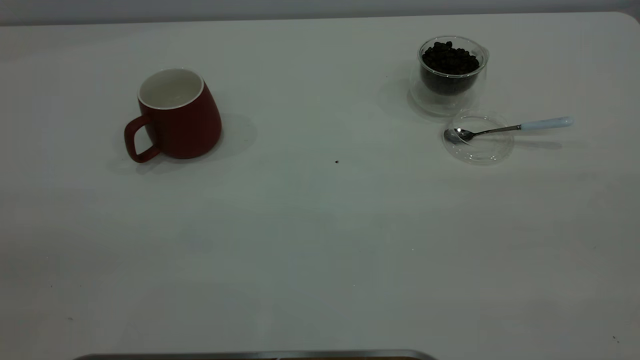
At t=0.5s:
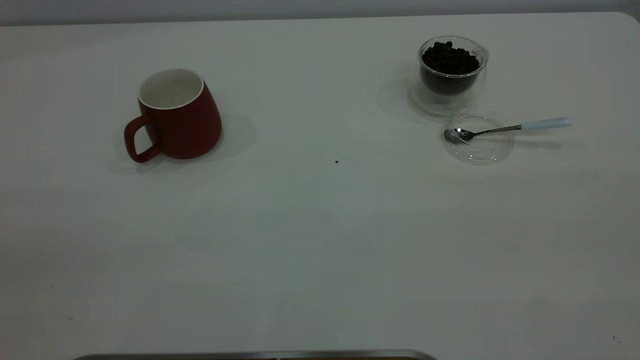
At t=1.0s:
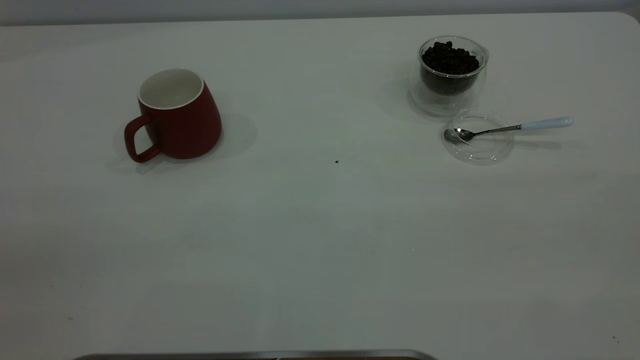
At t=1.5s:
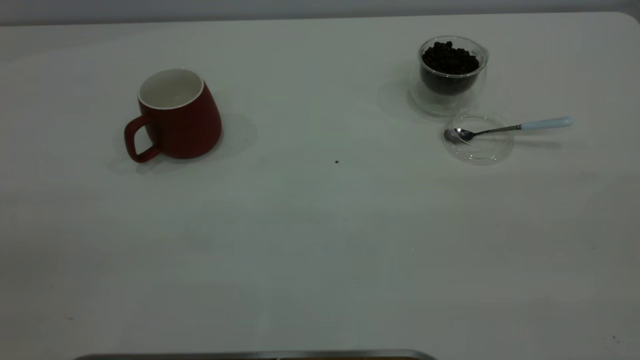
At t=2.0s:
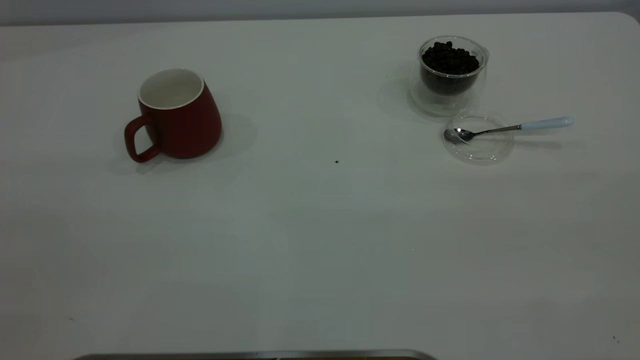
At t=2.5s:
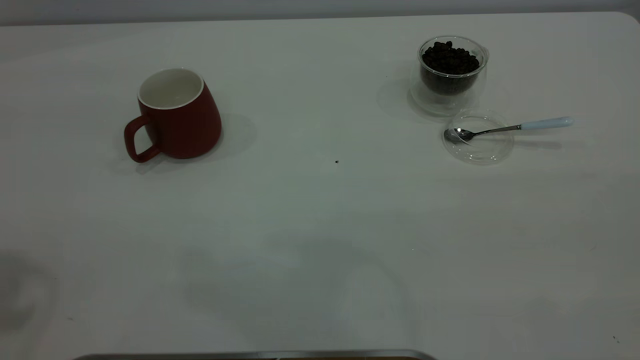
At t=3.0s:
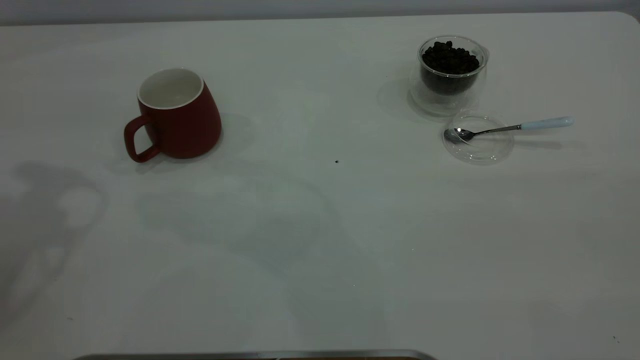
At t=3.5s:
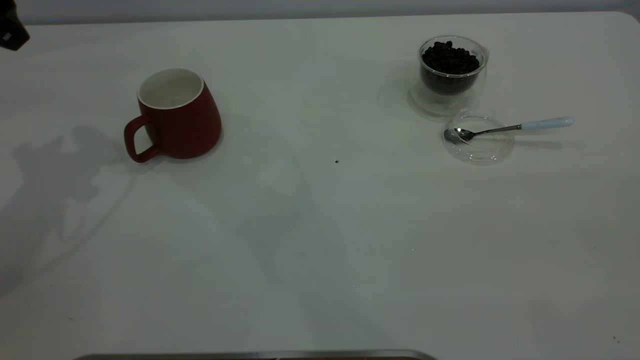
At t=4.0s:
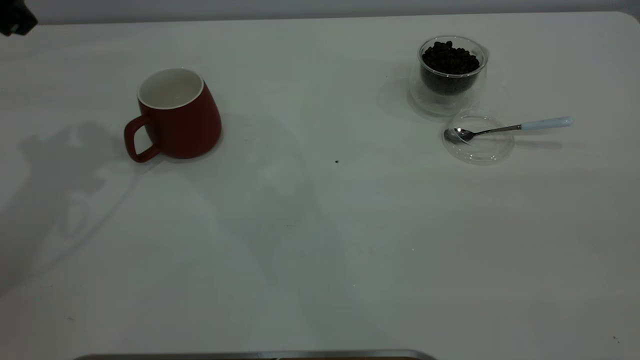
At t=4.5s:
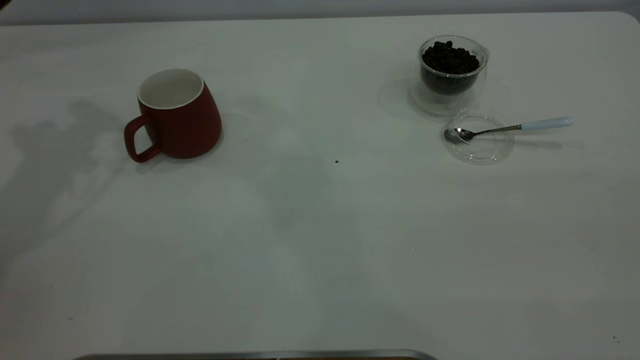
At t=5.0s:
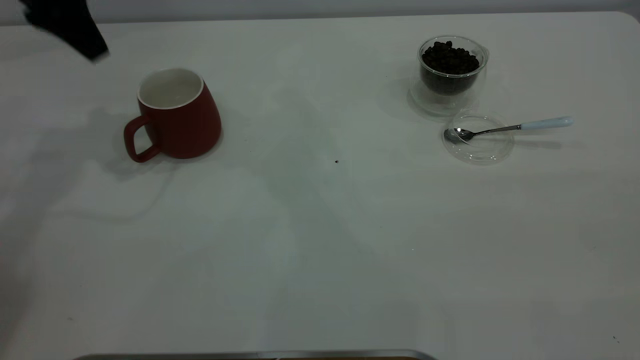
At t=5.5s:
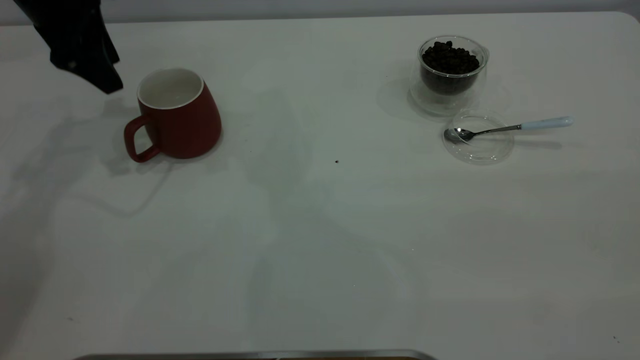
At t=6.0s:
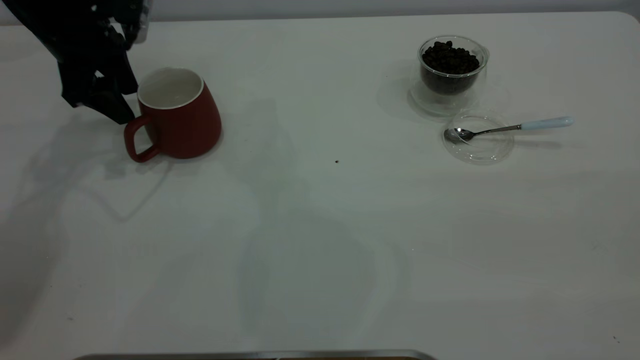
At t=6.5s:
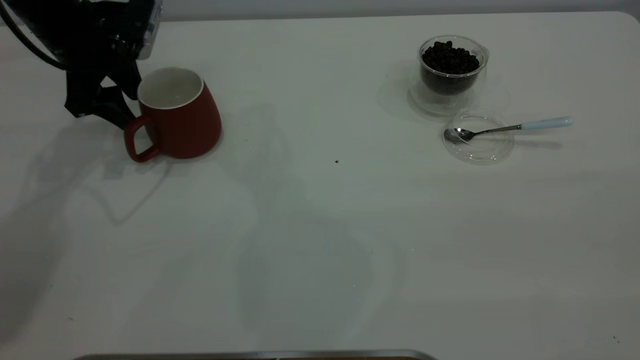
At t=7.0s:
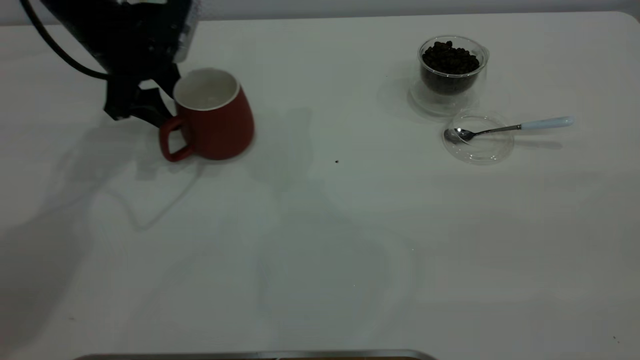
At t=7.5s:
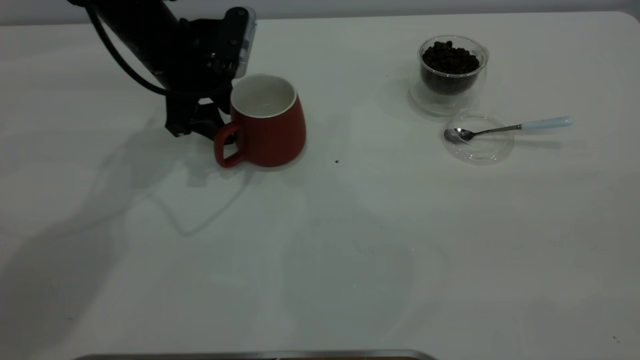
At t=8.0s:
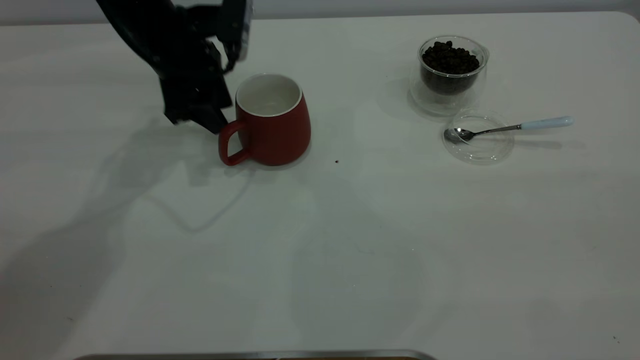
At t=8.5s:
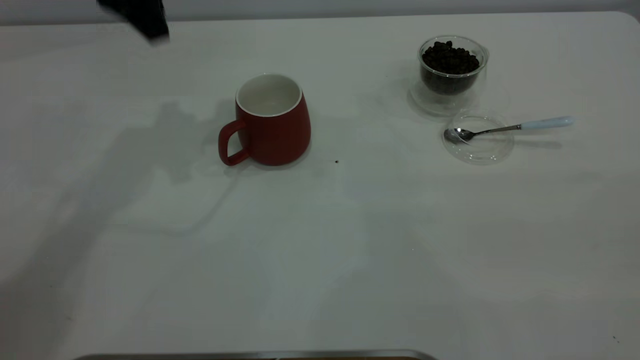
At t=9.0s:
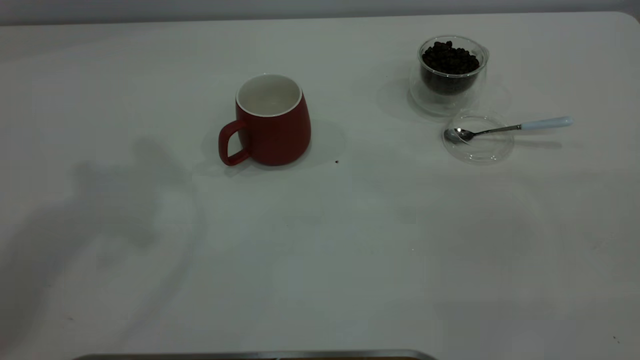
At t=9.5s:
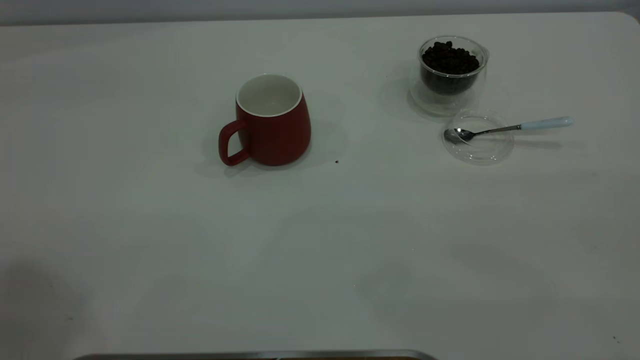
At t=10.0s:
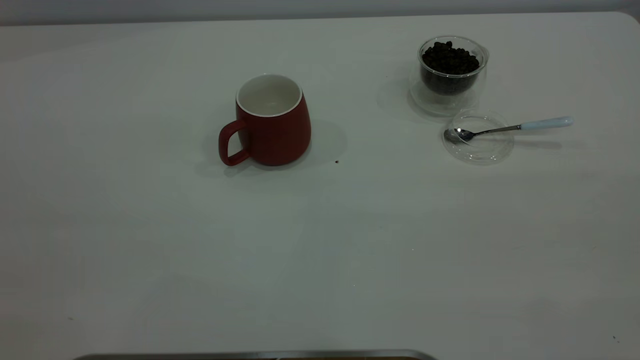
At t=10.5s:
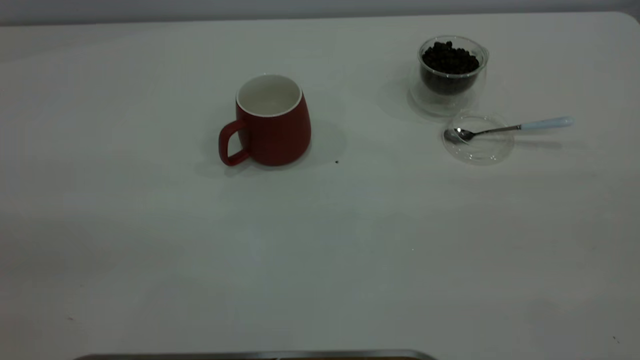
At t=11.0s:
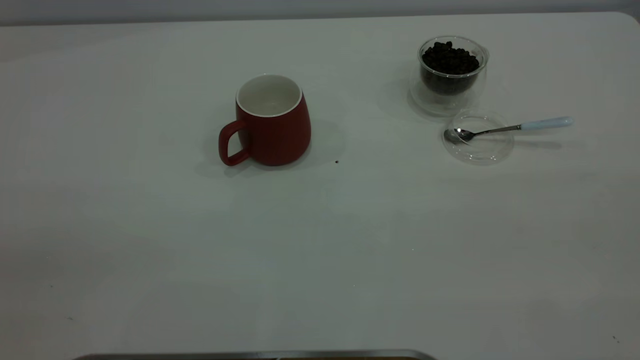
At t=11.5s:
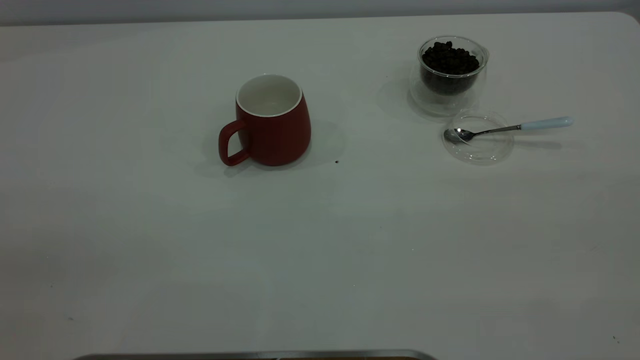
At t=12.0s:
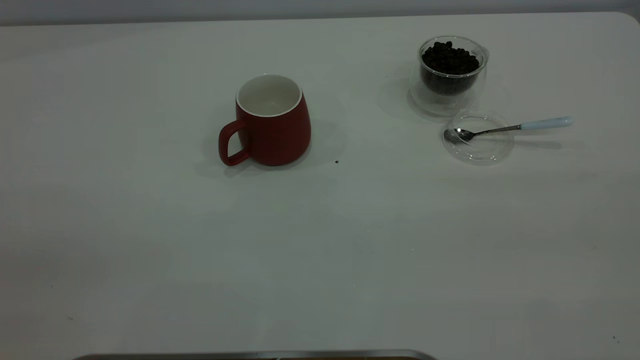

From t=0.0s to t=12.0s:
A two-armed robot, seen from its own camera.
Task of the whole recording: the left gripper place the red cup in the center of the table, the right gripper take the blue spoon from the cup lid and scoop out the coffee beans from the coffee cup and put them into the red cup, the right gripper put the spoon back into the cup lid.
Step, from t=0.0s to t=8.0s: Move the cup to the center of view.
From t=4.0s to t=6.0s: The left gripper heads downward and forward, covering roughly 15 cm.
From t=6.0s to t=8.0s: The left gripper shifts about 10 cm to the right, and closes.
From t=8.0s to t=10.0s: The left gripper heads backward and upward, covering approximately 40 cm.

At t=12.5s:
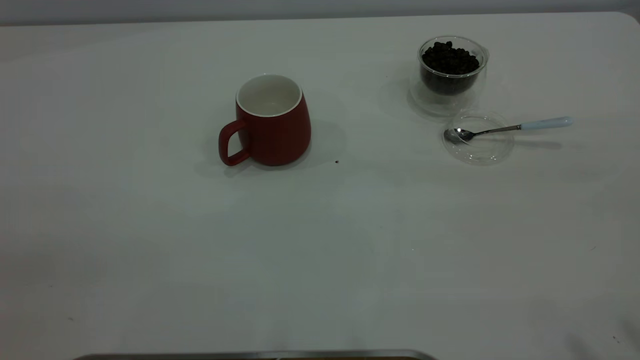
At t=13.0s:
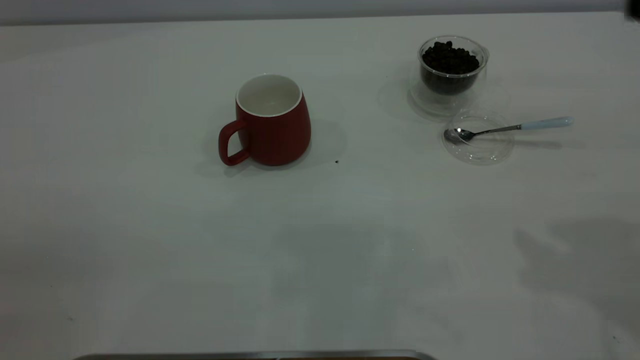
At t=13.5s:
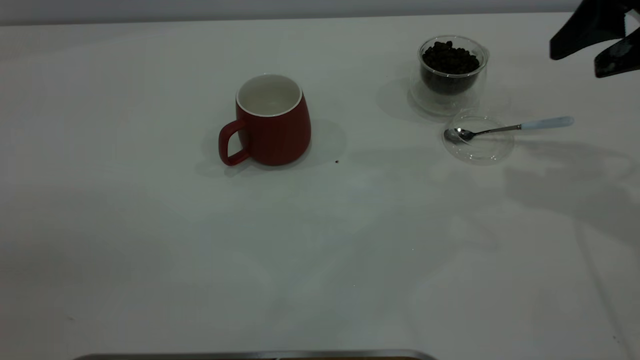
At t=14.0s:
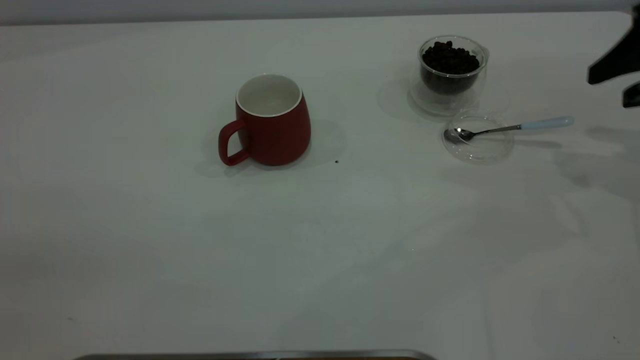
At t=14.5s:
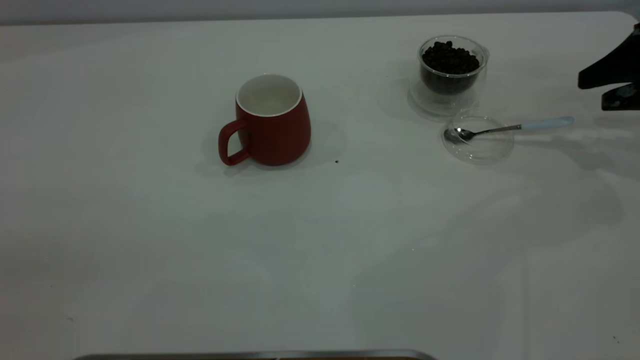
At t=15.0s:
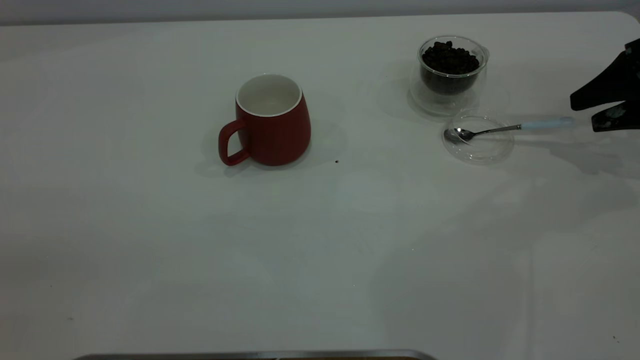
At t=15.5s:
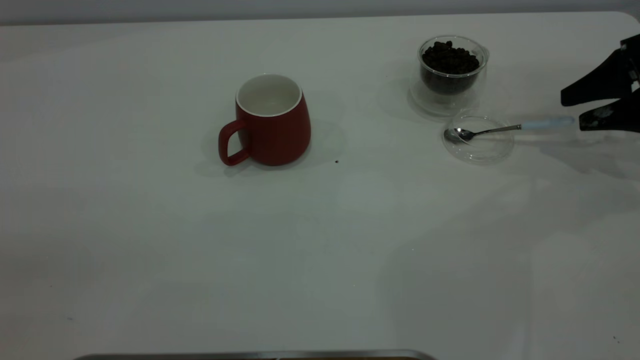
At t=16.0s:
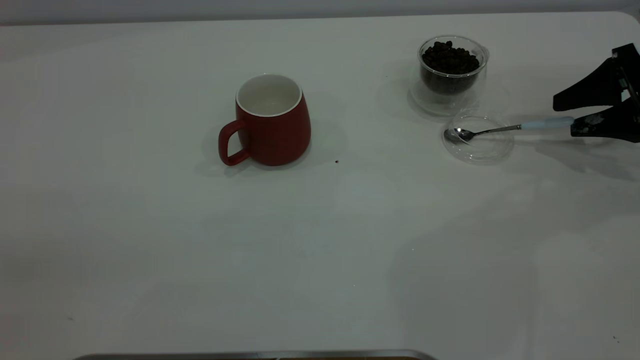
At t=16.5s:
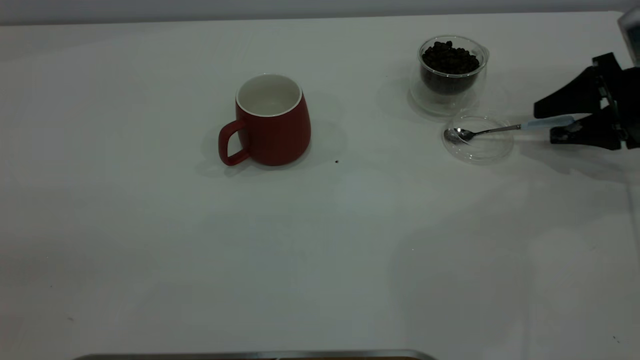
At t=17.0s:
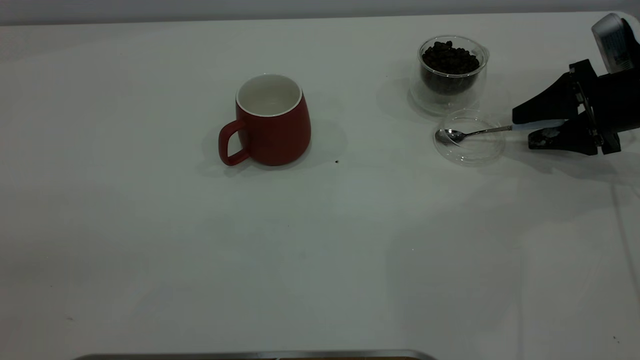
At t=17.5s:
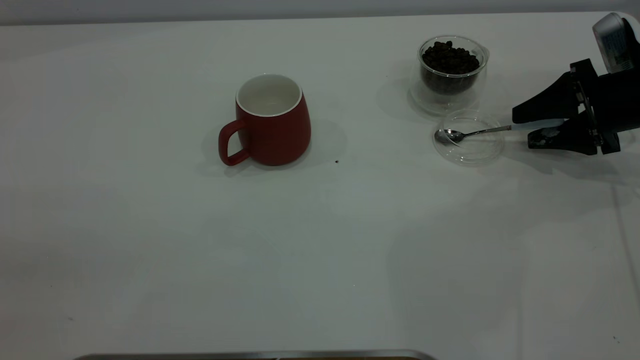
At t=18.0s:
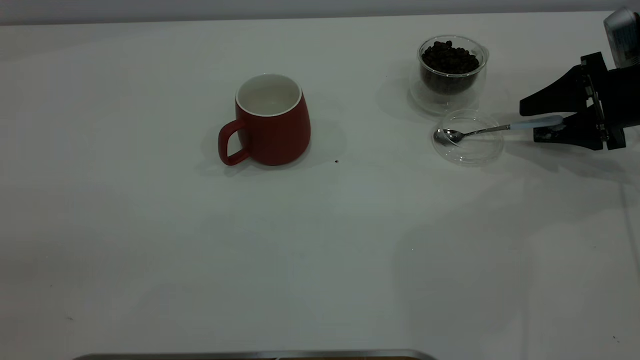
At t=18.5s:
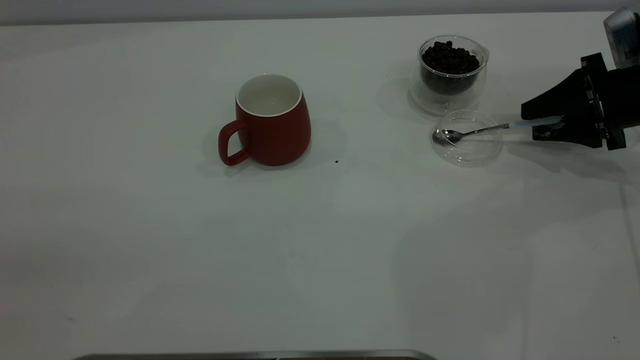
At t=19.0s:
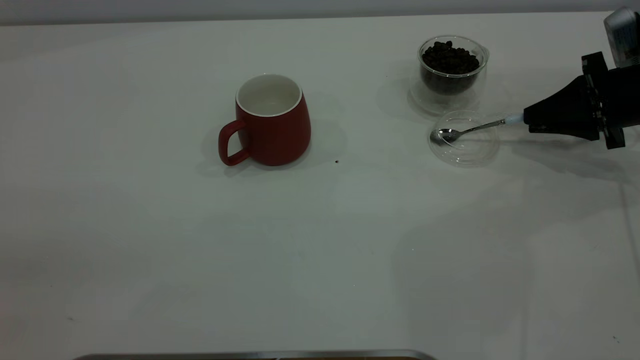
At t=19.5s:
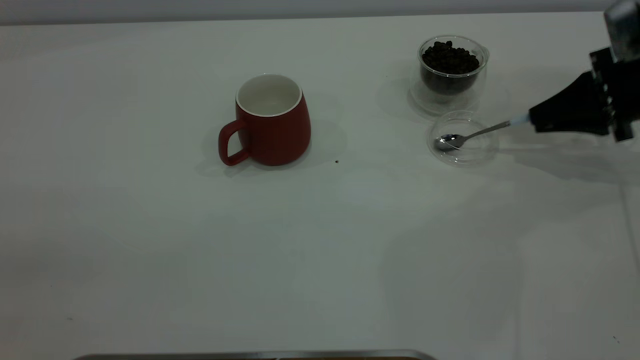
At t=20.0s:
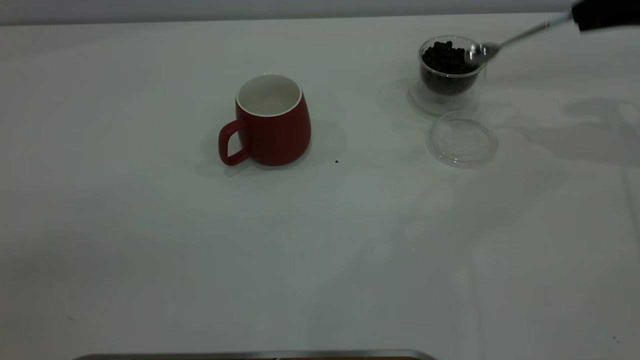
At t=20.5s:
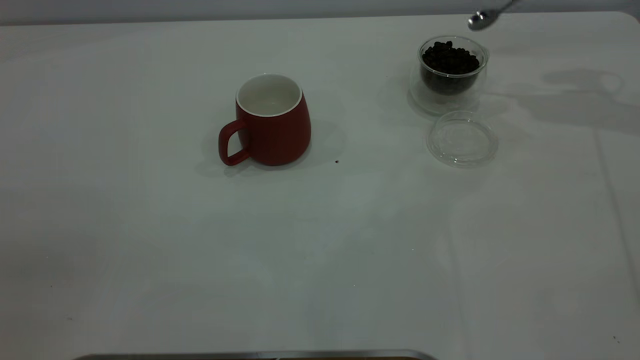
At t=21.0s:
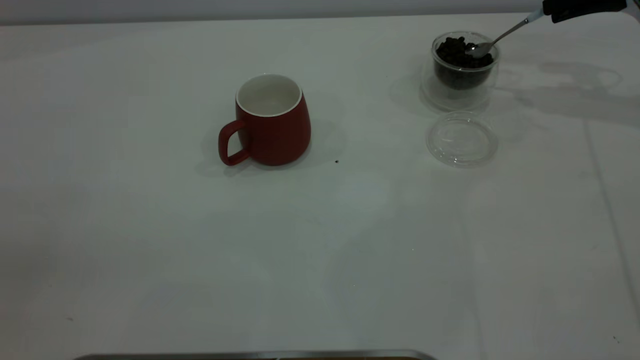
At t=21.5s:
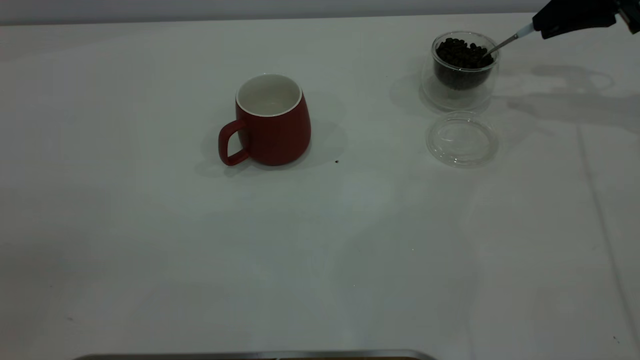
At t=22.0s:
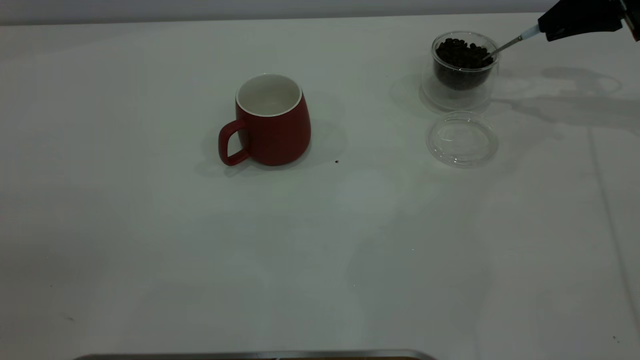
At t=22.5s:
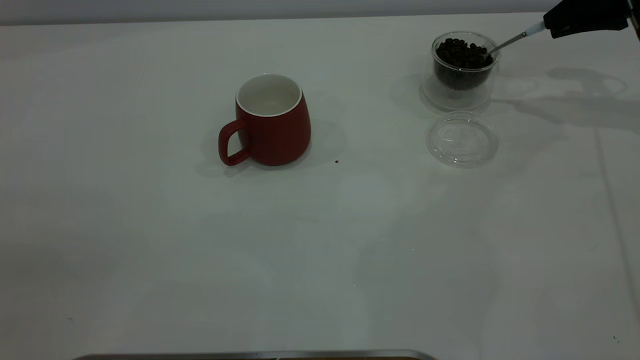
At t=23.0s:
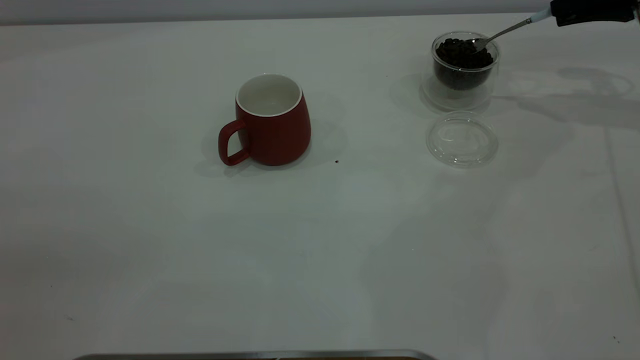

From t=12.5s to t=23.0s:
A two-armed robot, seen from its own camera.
Task of the whole recording: the left gripper place the red cup in the center of the table, the right gripper take the blue spoon from the cup lid and scoop out the coffee beans from the coffee cup and put them into the red cup, the right gripper put the spoon back into the cup lid.
Step, from t=12.5s to t=19.5s: Pick up the spoon.
From t=12.5s to t=14.5s: The right gripper goes approximately 40 cm forward and downward.
From t=14.5s to t=16.5s: The right gripper travels downward by some 5 cm.
From t=16.5s to t=19.0s: The right gripper closes its fingers.
From t=19.0s to t=21.0s: The right gripper shifts about 15 cm upward and forward.
